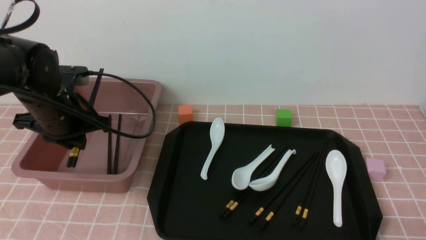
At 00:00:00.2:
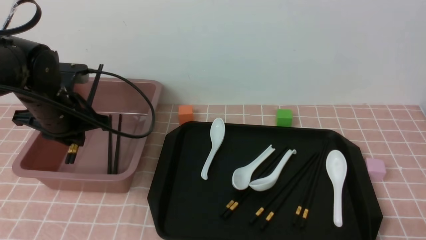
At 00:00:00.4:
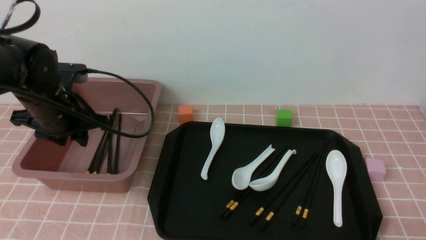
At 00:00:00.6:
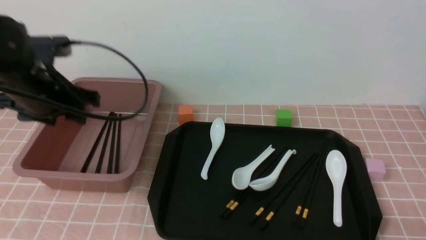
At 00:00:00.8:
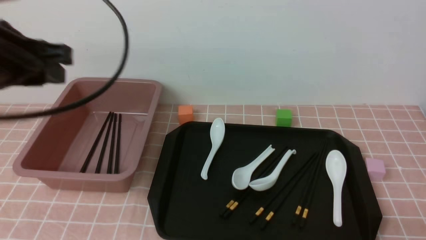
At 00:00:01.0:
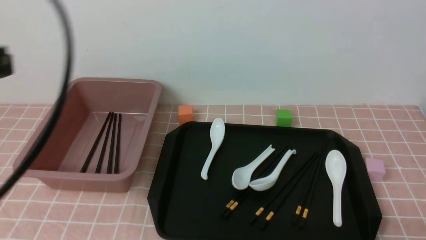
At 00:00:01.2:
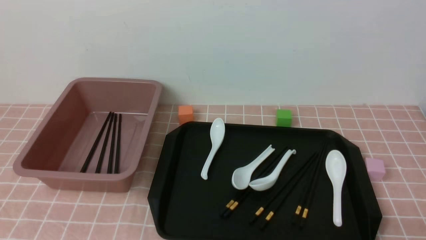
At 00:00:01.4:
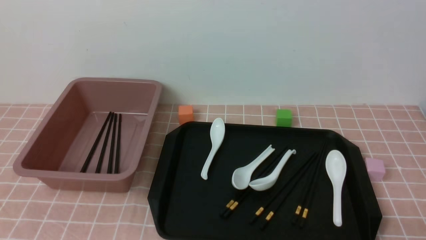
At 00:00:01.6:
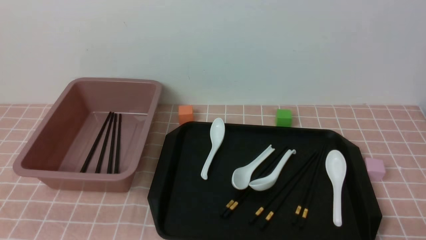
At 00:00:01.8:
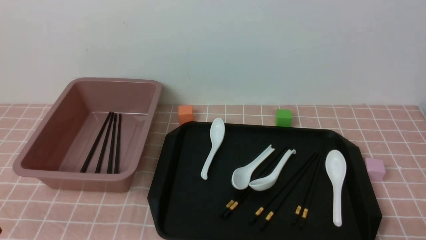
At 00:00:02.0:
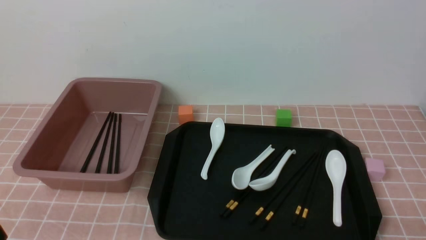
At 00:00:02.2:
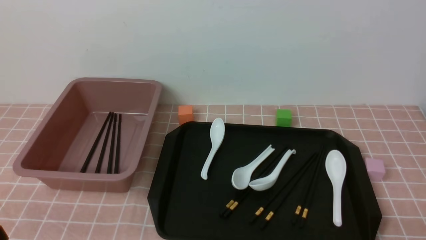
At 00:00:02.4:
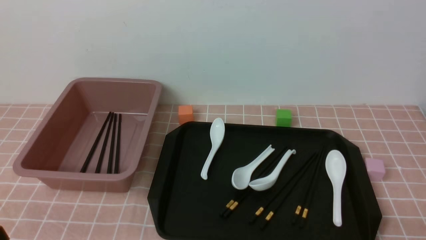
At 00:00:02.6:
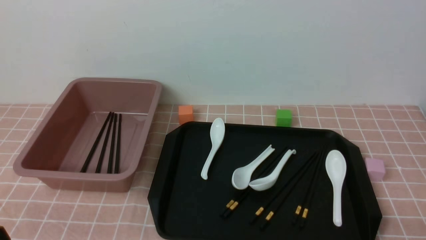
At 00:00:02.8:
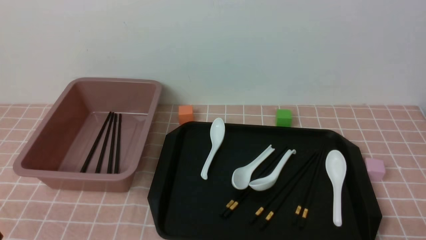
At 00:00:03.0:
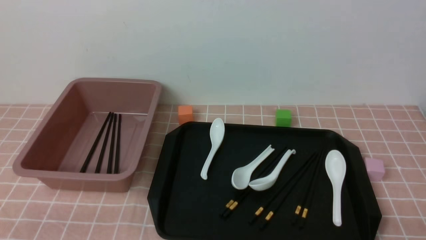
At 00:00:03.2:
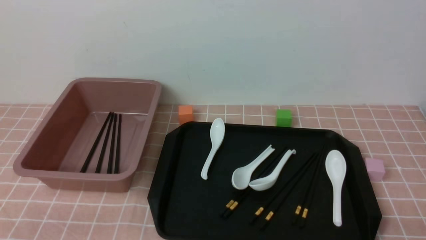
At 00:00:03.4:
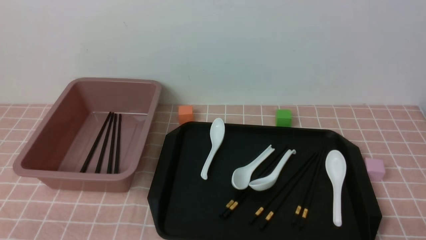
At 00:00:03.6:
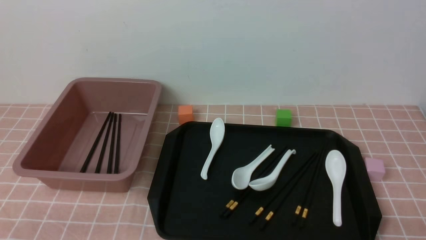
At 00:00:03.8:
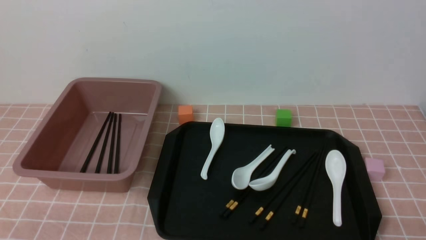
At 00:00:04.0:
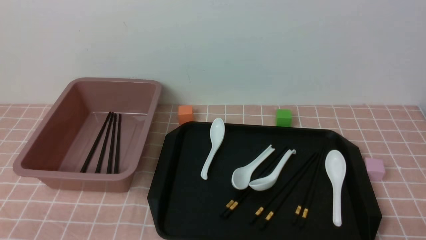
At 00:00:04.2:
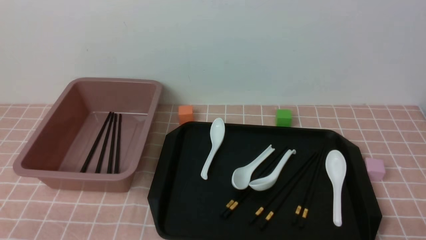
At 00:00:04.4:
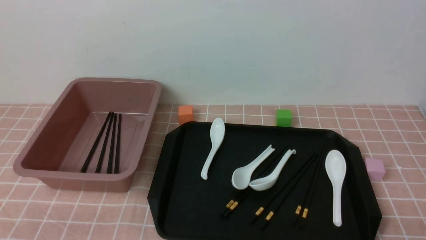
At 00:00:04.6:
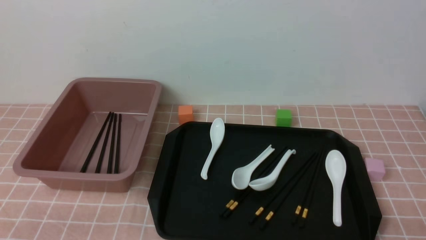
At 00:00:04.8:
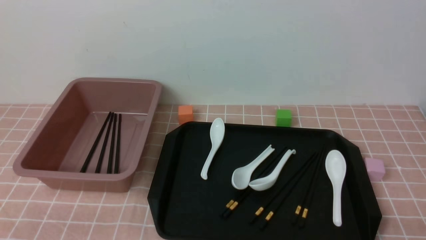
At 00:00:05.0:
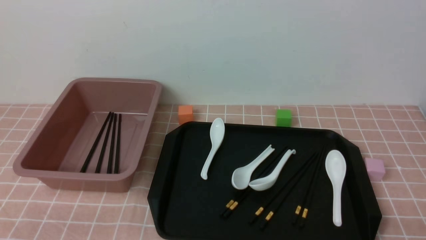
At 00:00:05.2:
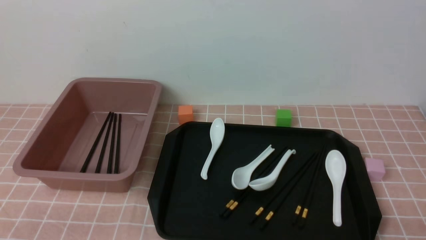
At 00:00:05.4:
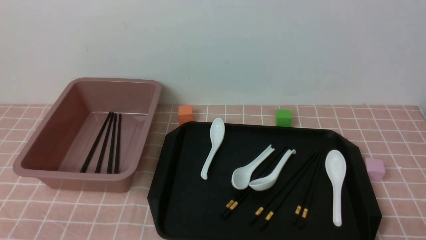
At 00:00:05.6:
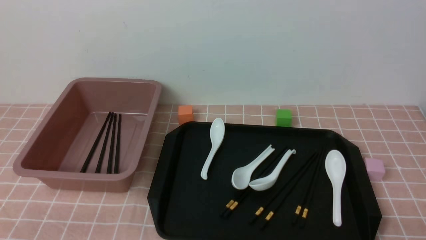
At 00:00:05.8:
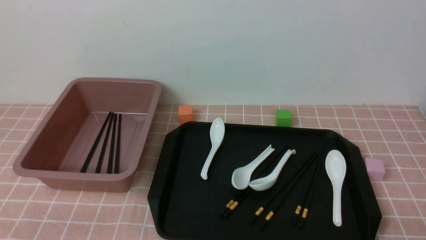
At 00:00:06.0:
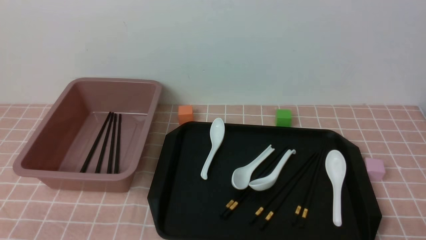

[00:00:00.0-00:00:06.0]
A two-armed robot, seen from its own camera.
00:00:00.0 to 00:00:01.6: The left gripper moves backward, about 30 cm, and closes.
00:00:04.4 to 00:00:06.0: The two grippers keep their place.
